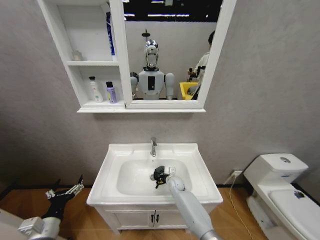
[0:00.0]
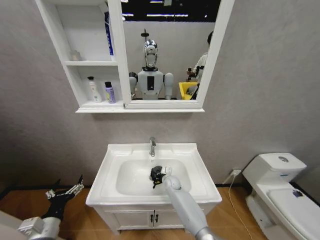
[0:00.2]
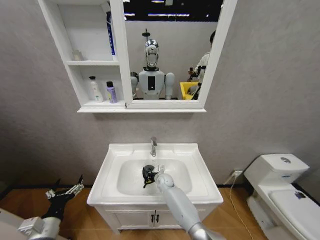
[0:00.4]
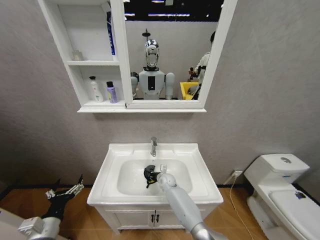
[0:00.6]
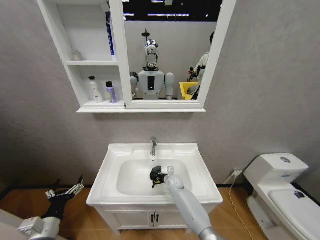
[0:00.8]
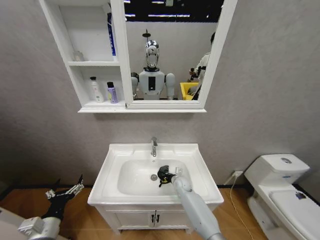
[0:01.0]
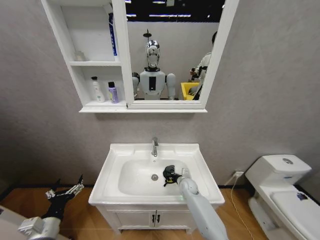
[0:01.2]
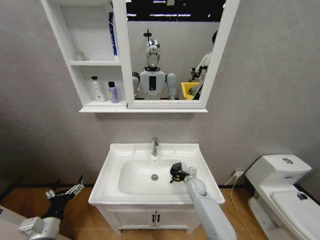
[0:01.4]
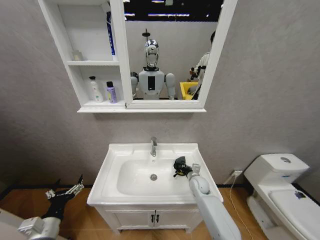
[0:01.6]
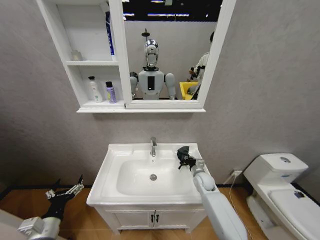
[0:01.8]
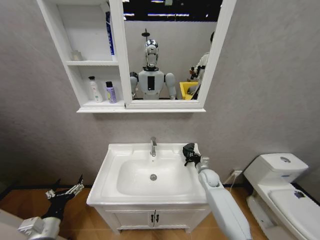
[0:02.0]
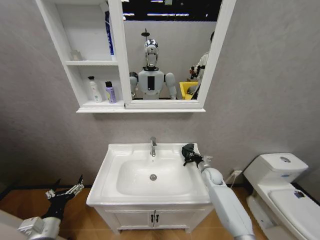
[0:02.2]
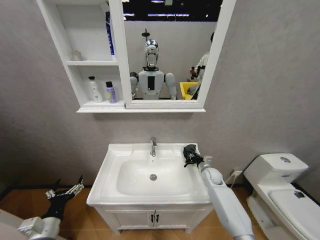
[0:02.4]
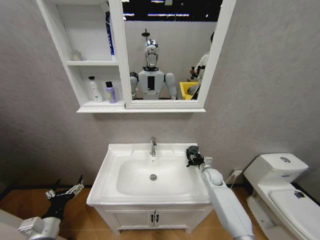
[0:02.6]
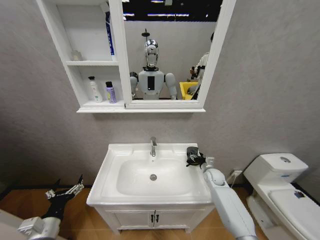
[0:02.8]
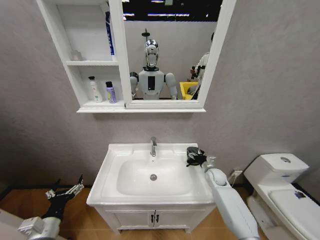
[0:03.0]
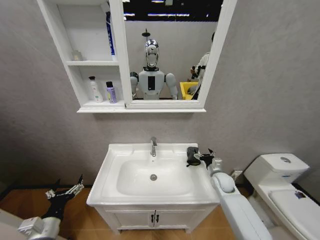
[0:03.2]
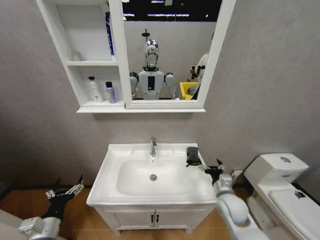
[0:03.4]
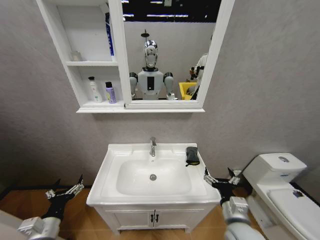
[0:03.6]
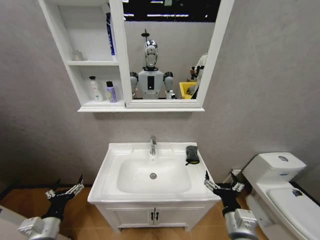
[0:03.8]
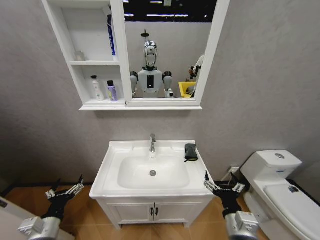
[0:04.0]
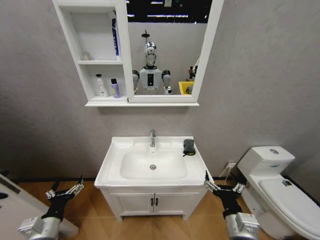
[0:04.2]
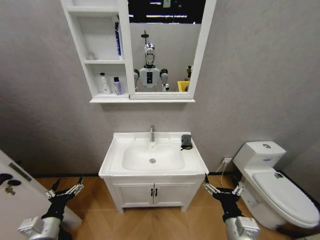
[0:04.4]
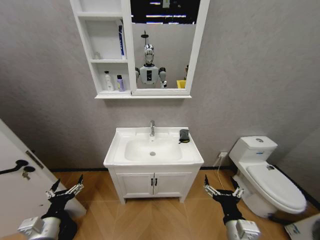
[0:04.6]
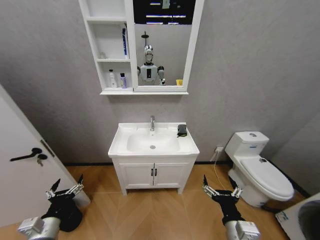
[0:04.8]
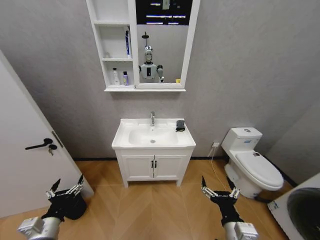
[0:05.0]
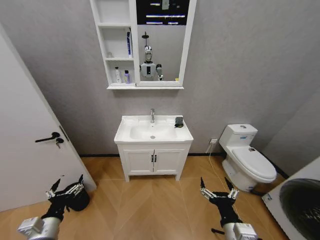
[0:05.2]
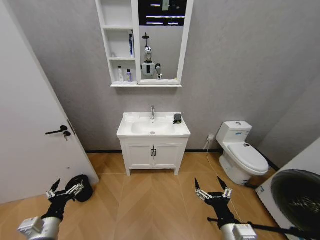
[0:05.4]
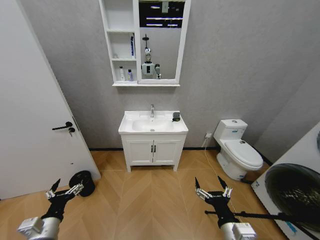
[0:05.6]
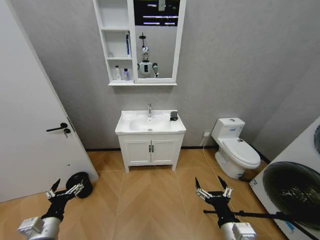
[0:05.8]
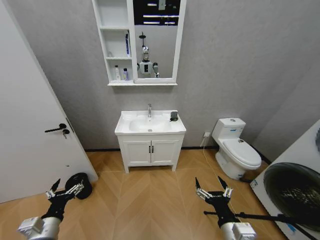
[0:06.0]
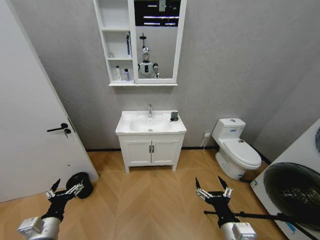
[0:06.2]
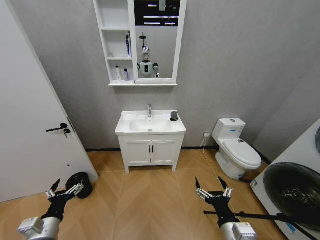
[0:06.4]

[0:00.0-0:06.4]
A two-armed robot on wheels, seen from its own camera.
Task of the whole recording: Move facial cleanser and shampoo from washbasin to cabinet, then wipe washbasin with towel.
0:00.0 to 0:01.6: The right gripper moves to the right and upward, some 15 cm.
0:01.6 to 0:03.2: The right gripper goes some 10 cm to the right and upward, and opens its fingers.
0:03.2 to 0:04.8: The right gripper is displaced backward and to the left by approximately 30 cm.

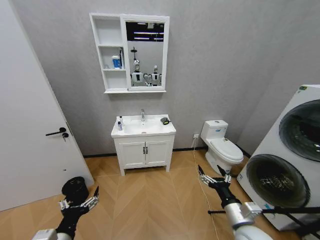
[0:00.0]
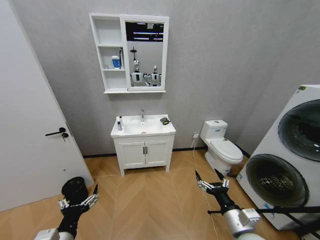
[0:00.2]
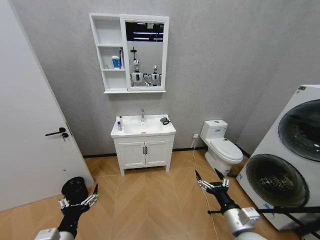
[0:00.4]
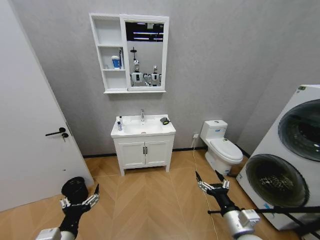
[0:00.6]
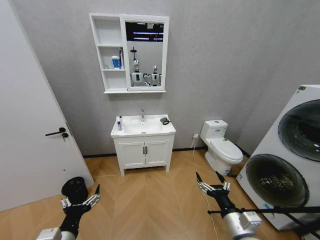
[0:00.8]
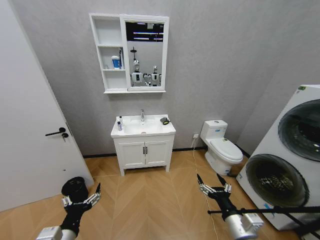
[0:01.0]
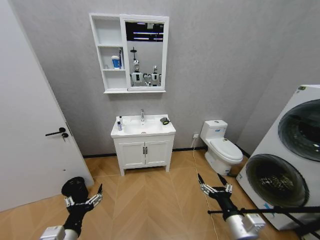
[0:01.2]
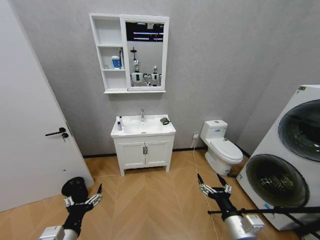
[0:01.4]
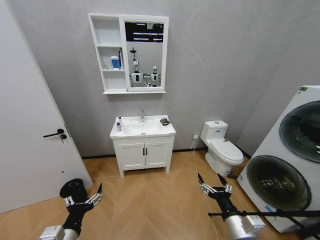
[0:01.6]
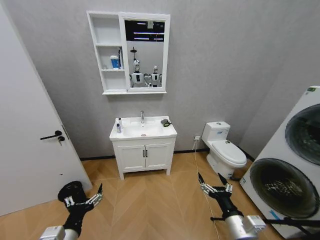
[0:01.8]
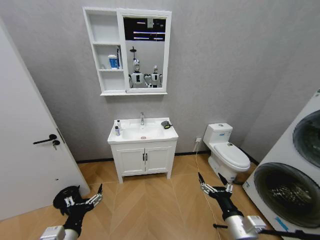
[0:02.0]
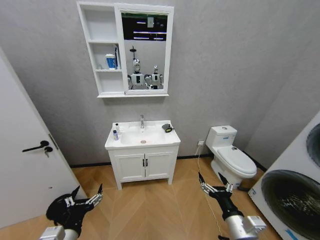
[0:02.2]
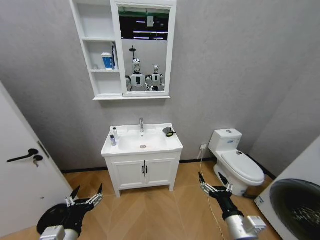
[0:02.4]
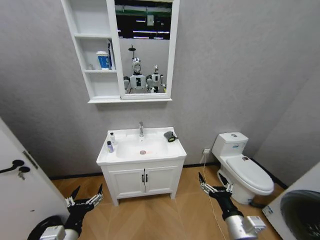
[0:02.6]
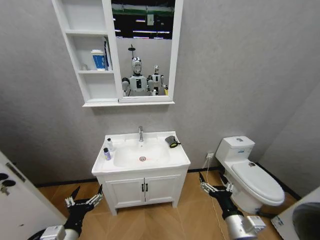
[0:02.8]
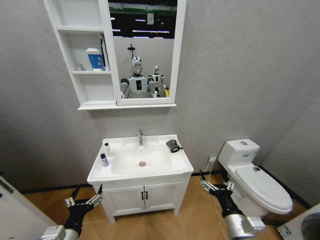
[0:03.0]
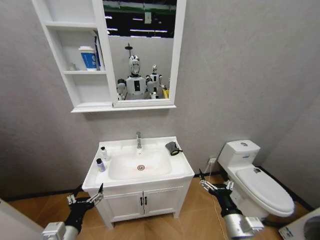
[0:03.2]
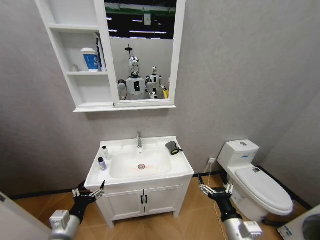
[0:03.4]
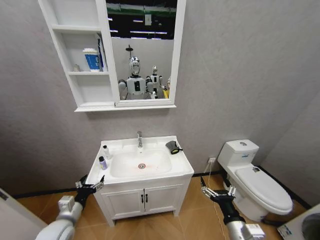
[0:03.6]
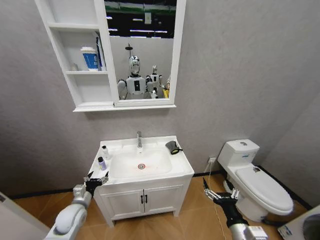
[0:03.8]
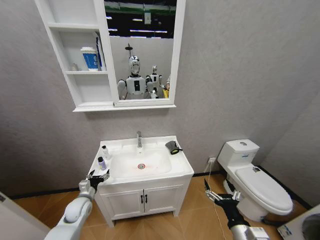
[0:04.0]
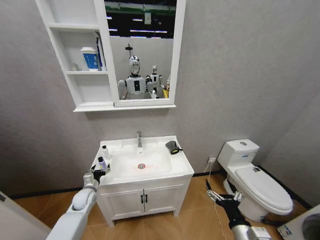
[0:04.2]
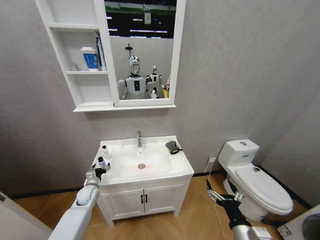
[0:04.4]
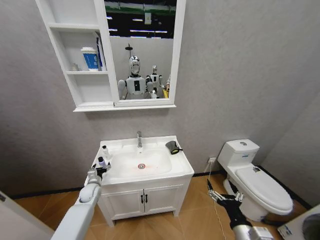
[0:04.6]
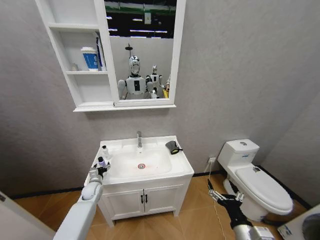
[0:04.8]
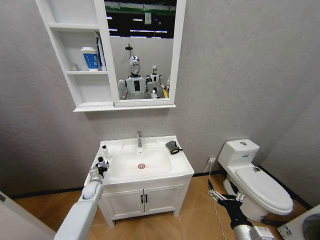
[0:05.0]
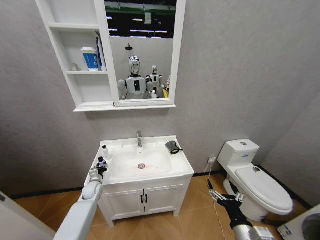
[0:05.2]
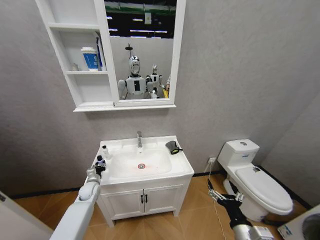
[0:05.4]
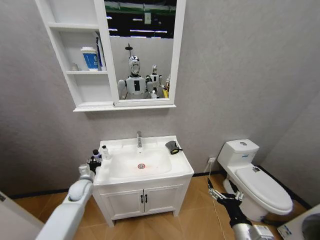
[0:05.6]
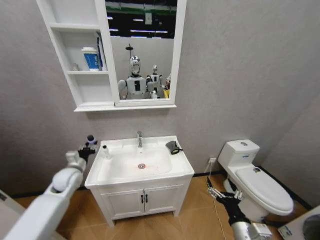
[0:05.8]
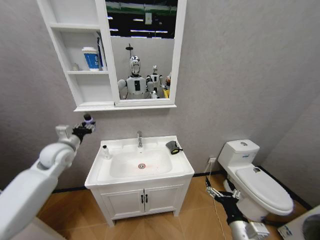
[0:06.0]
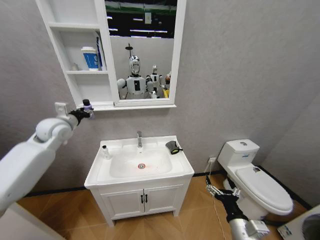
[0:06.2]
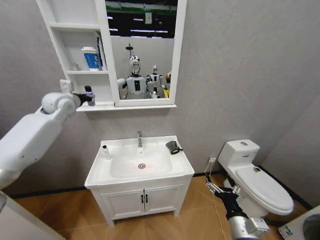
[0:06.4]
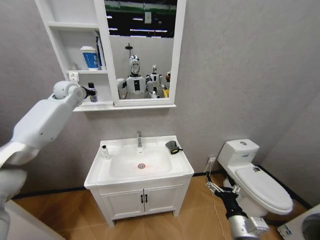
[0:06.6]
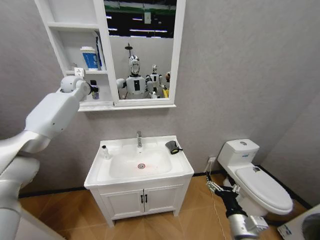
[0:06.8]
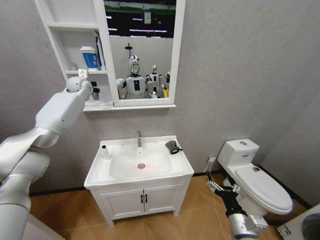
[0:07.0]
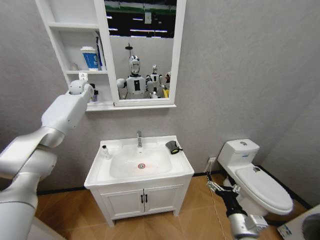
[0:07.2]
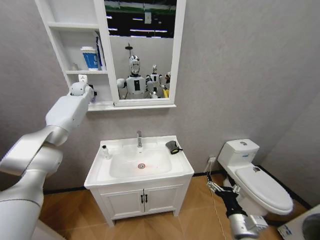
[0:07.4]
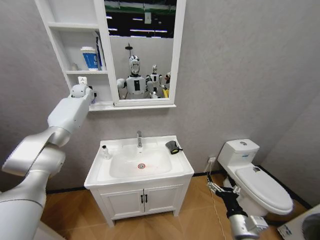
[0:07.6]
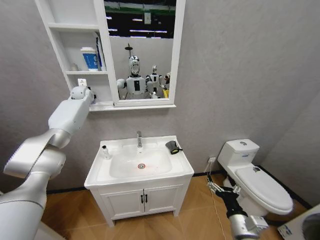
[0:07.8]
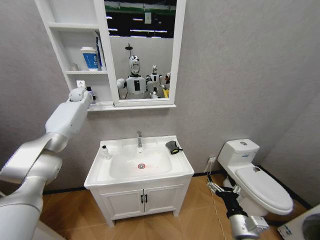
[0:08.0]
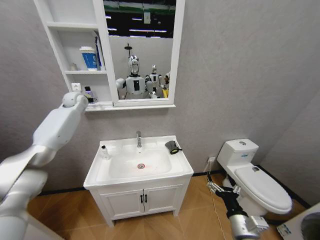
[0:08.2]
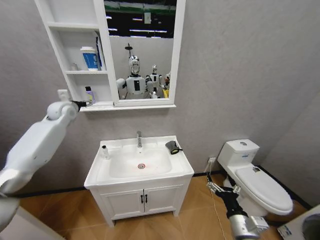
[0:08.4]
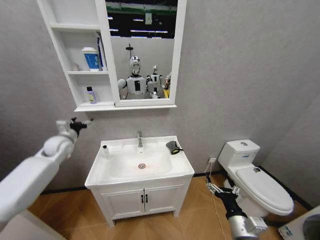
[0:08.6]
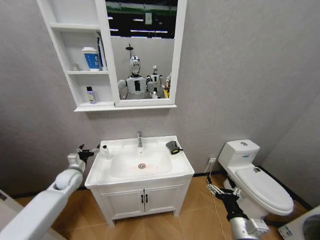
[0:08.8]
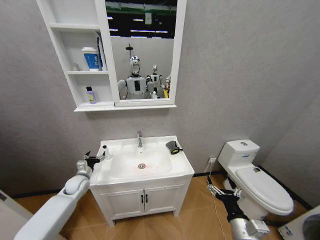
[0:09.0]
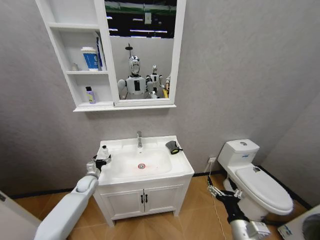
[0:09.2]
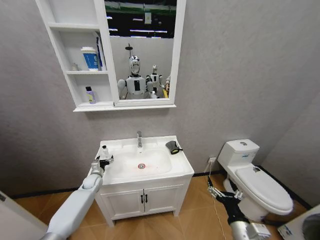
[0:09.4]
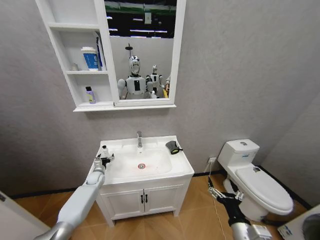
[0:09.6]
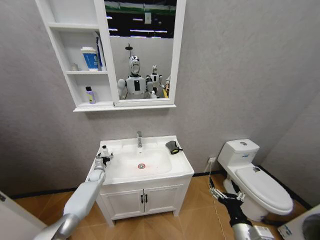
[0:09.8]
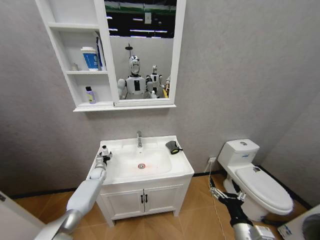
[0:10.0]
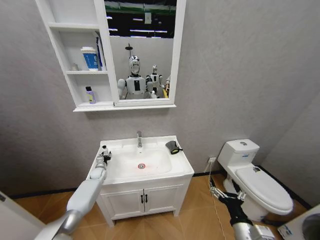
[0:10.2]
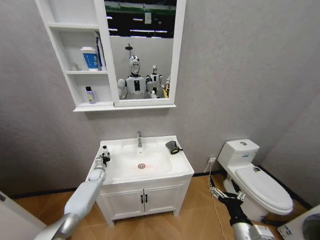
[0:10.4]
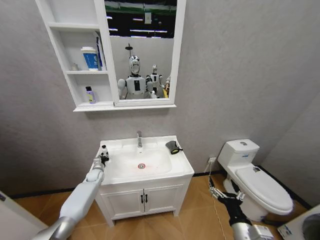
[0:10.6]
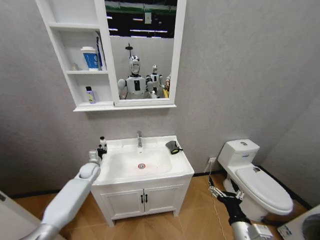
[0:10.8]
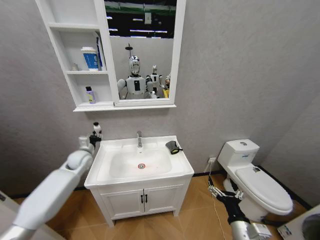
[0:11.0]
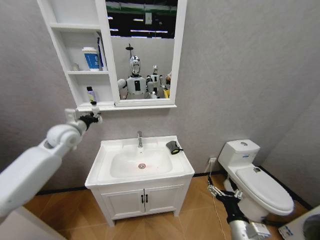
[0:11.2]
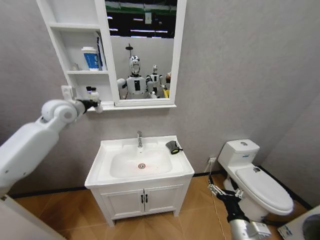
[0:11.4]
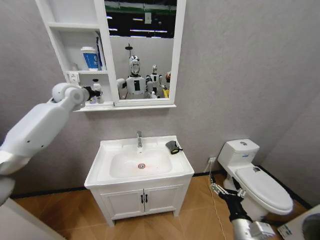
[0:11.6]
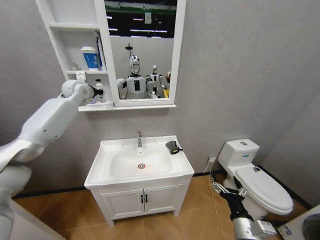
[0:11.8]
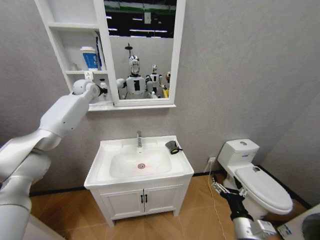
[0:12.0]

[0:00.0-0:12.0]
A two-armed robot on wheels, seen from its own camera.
Task of the whole recording: Move facial cleanser and shampoo from washbasin to cabinet, then wipe washbasin with towel.
0:03.0 to 0:04.4: The left gripper heads forward and downward, covering approximately 30 cm.
0:04.4 to 0:06.0: The left gripper is displaced upward by some 30 cm, and closes up.
0:06.0 to 0:07.6: The left gripper shifts about 30 cm forward and upward.
0:07.6 to 0:09.0: The left gripper heads downward and backward, covering some 50 cm, and opens.
0:09.0 to 0:10.4: The left gripper heads forward and downward, covering approximately 15 cm, and closes.
0:10.4 to 0:12.0: The left gripper shifts roughly 50 cm upward.

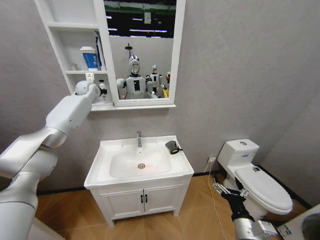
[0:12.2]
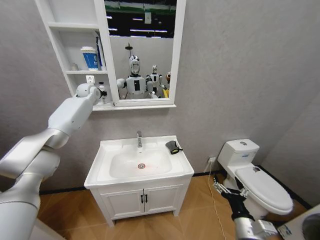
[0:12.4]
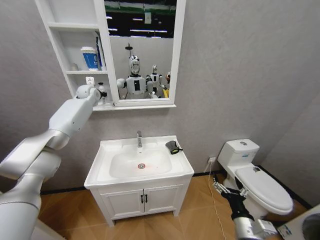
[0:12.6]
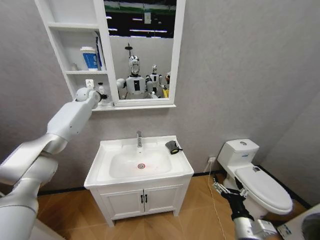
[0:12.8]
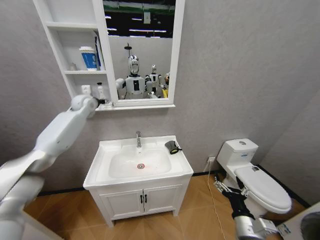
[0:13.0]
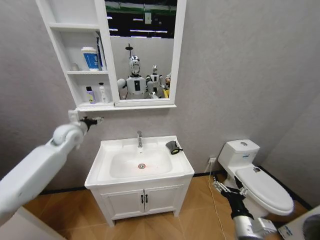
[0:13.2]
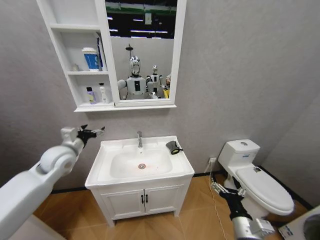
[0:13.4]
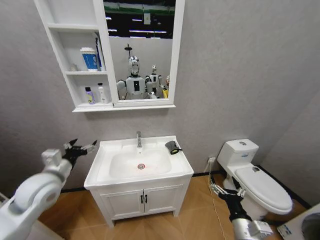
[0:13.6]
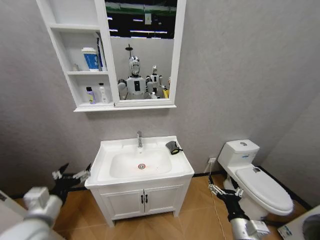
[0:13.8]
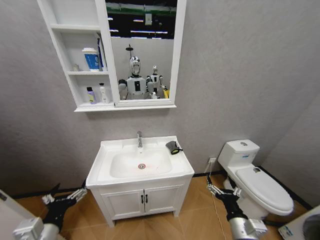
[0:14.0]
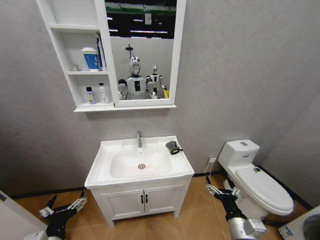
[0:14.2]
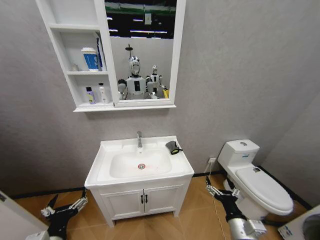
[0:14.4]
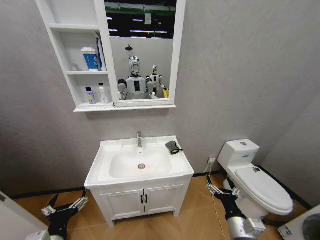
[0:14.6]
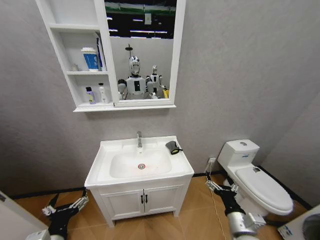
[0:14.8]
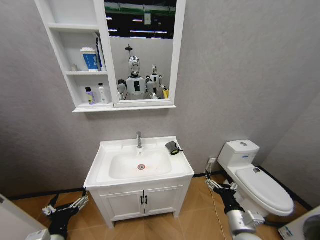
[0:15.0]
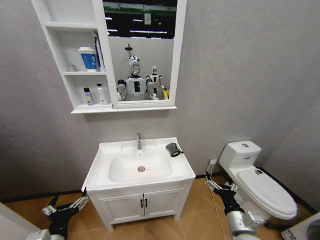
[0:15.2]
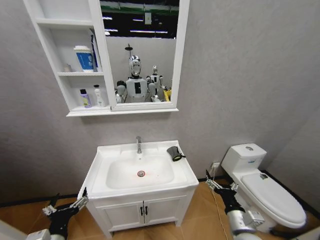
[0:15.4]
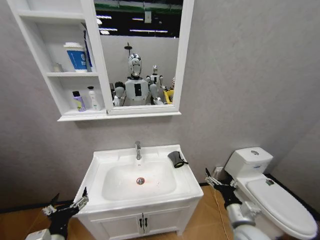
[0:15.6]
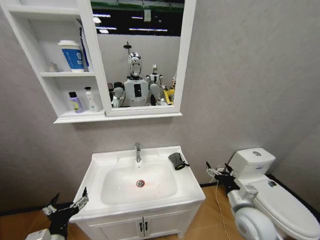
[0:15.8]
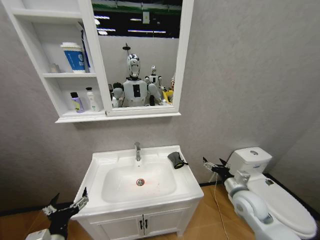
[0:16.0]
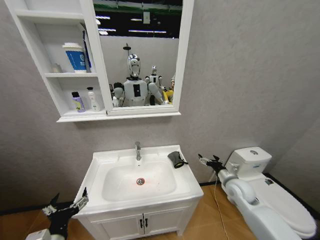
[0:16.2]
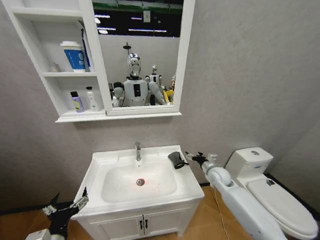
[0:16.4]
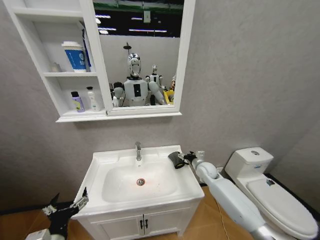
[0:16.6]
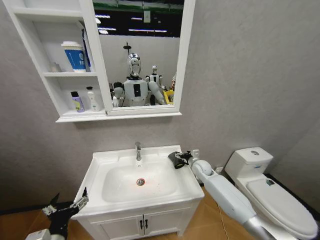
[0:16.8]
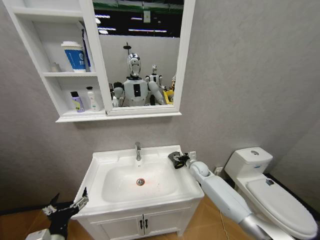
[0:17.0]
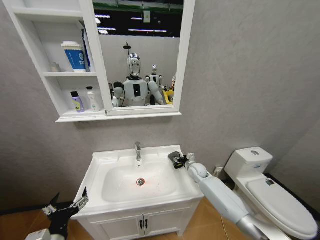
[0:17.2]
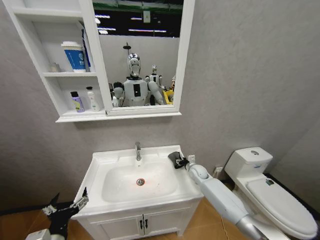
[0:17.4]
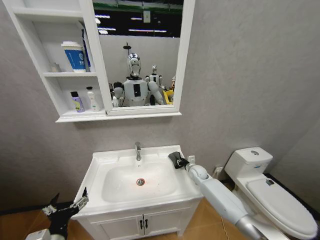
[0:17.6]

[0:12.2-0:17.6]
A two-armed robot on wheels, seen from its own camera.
Task of the whole recording: Move facial cleanser and shampoo from washbasin to cabinet, then wipe washbasin with towel.
0:12.2 to 0:13.6: The left gripper goes approximately 40 cm backward and downward, and opens its fingers.
0:13.6 to 0:15.0: The left gripper heads backward, downward and to the right, covering about 20 cm.
0:15.0 to 0:16.2: The right gripper moves forward, roughly 20 cm.
0:16.2 to 0:17.6: The right gripper goes approximately 20 cm forward, downward and to the left, and closes up.
